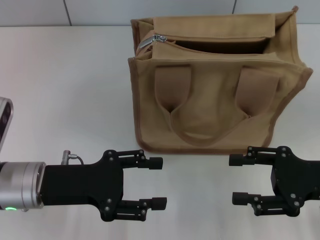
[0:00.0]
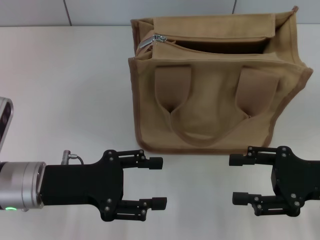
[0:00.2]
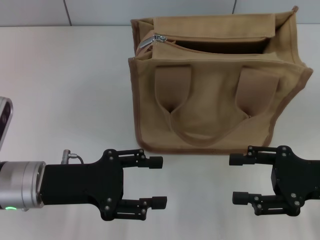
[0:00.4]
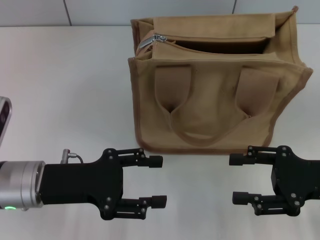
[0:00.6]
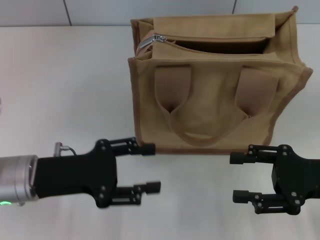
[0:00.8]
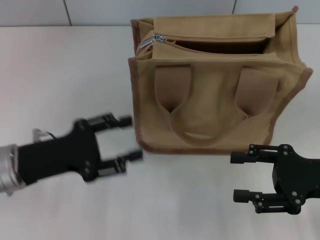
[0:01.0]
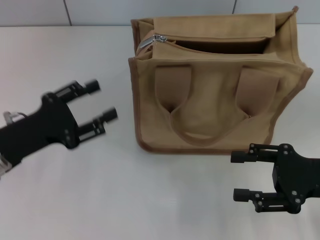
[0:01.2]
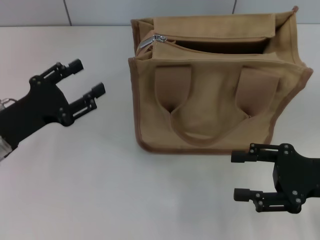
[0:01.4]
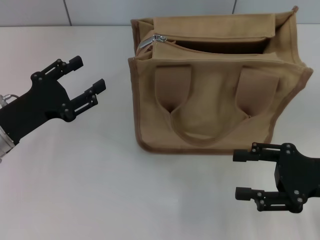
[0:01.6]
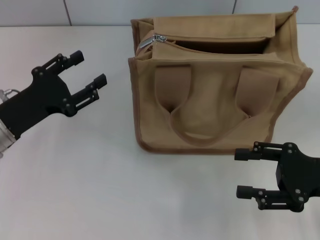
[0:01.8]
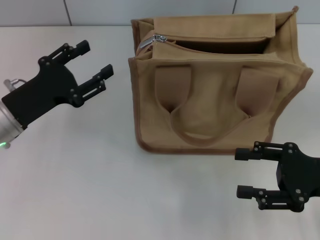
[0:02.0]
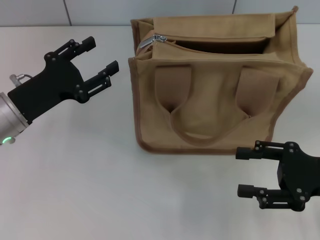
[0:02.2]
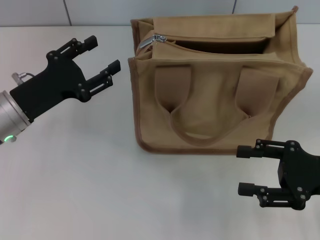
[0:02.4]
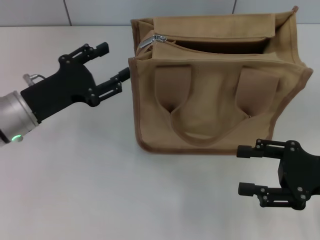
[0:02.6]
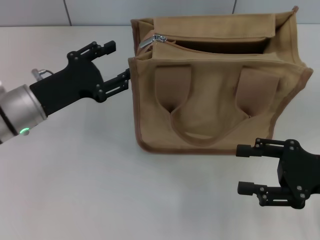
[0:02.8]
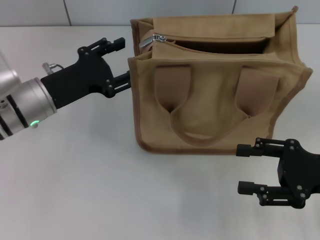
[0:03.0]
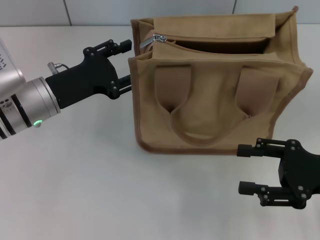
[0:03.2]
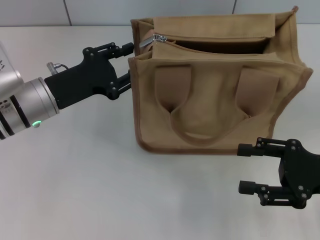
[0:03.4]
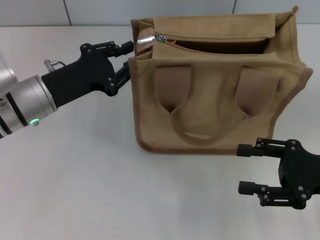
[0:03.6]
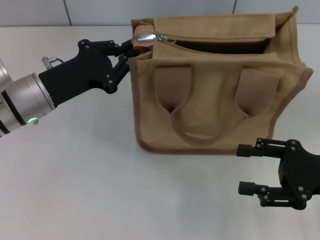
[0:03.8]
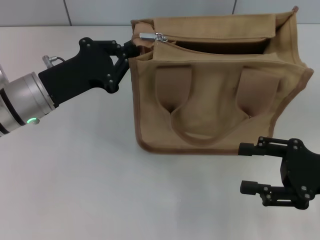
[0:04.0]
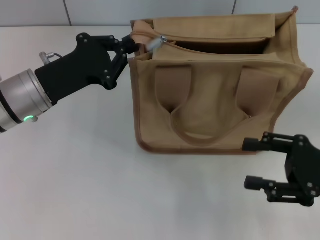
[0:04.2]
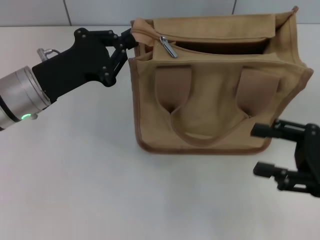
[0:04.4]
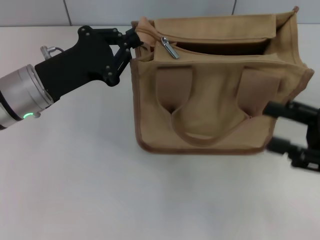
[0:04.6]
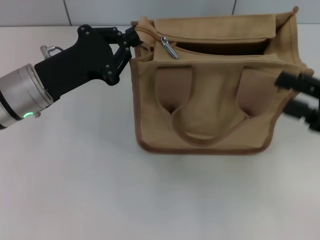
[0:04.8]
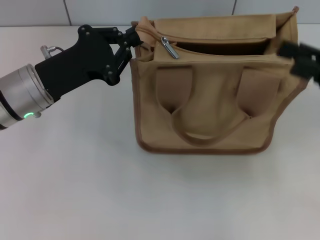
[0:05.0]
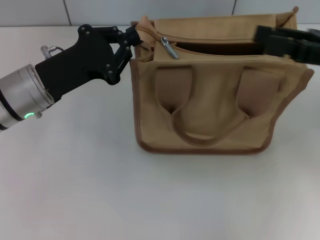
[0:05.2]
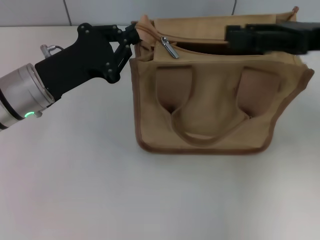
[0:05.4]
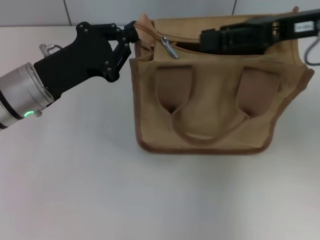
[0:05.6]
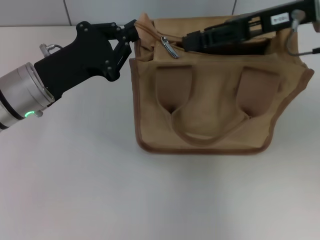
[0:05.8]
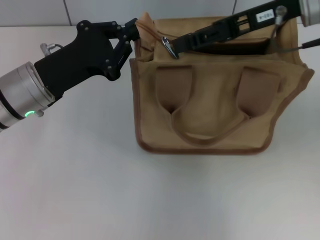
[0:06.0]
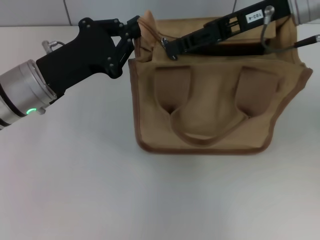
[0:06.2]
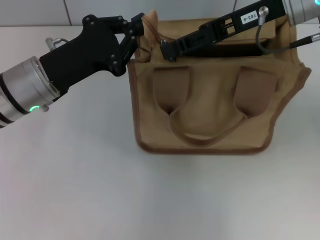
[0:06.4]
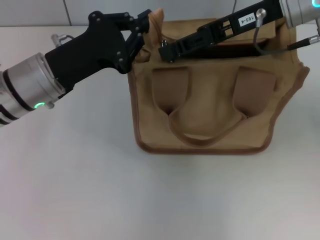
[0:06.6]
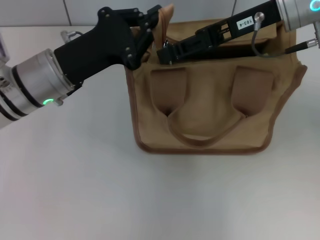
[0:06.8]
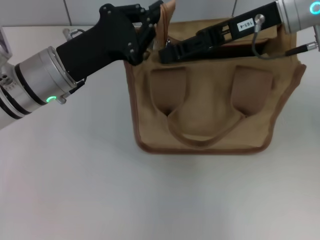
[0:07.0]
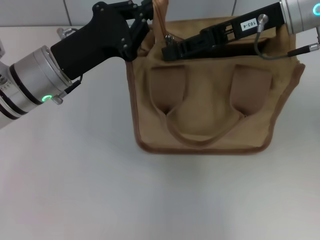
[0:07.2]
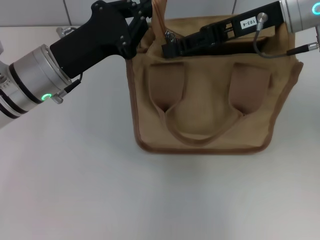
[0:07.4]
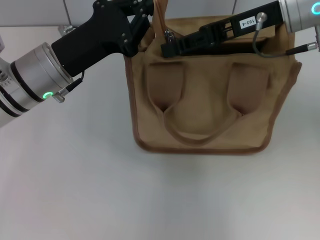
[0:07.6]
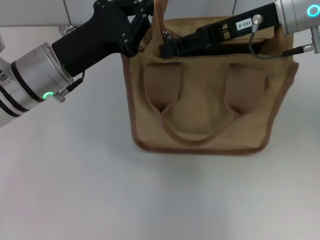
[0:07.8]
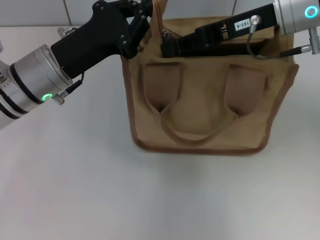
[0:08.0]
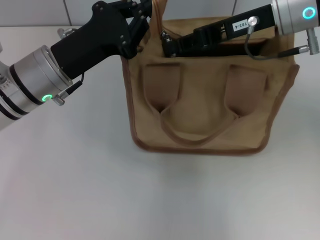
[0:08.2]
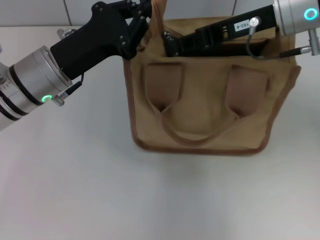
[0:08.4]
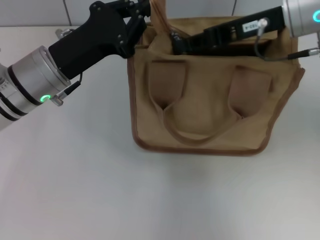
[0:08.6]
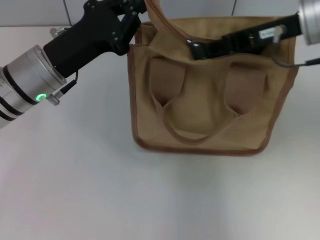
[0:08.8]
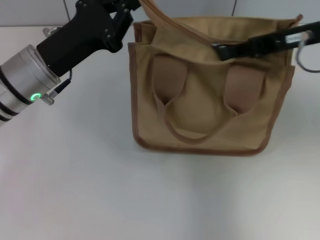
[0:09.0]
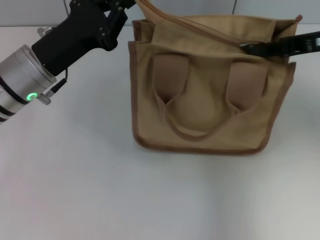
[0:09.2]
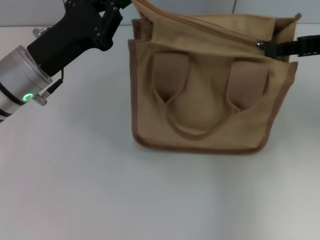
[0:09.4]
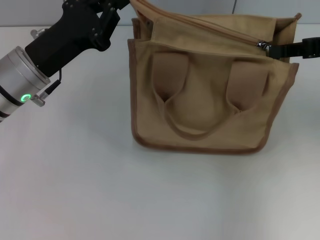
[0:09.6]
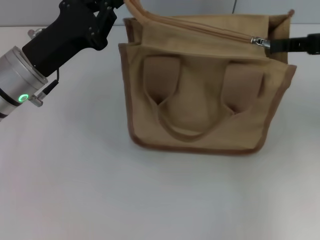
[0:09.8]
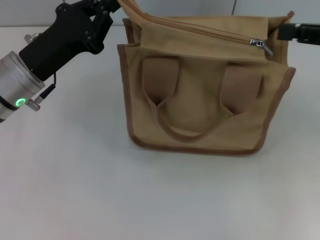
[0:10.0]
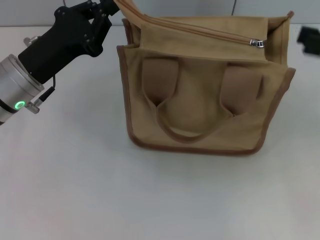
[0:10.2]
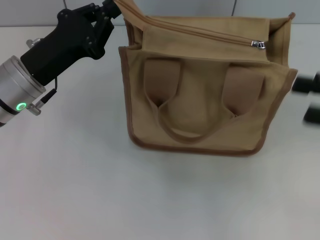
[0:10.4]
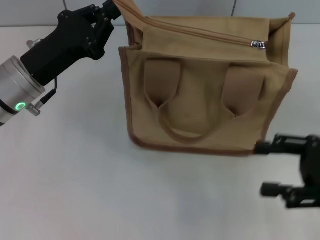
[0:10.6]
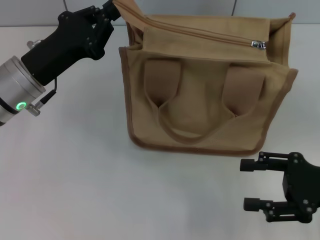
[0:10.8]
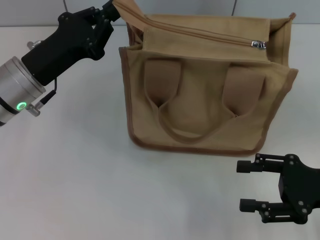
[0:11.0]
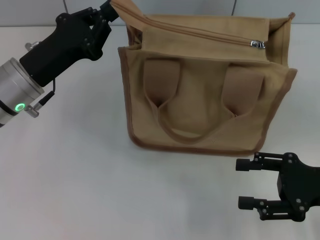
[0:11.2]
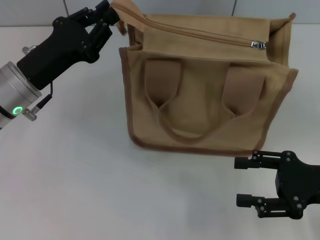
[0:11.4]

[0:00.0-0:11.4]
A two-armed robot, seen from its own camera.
Step, 0:00.0 to 0:10.0: Pull up the zipper with your right hand.
0:00.0 to 0:01.4: The left gripper goes some 5 cm to the left.
0:01.4 to 0:02.8: The left gripper shifts approximately 5 cm forward.
0:02.8 to 0:04.2: The left gripper closes its fingers.
0:04.2 to 0:05.6: The right gripper heads forward, upward and to the left, covering some 20 cm.
0:05.6 to 0:07.2: The right gripper goes roughly 5 cm to the left.
0:07.2 to 0:08.6: The right gripper closes.
0:08.6 to 0:10.0: The right gripper is displaced to the right and backward by approximately 15 cm.
0:10.0 to 0:11.4: The right gripper shifts some 15 cm downward and backward, and opens up.

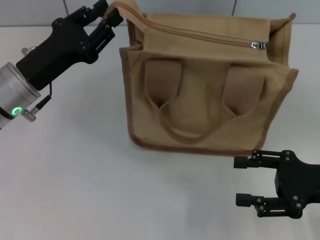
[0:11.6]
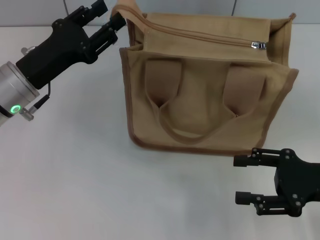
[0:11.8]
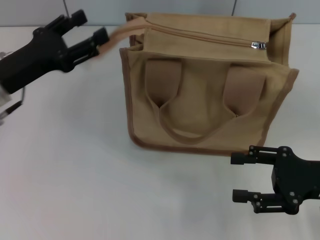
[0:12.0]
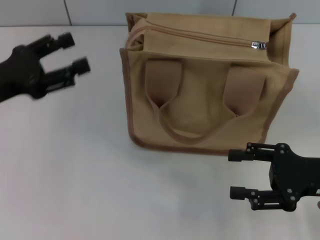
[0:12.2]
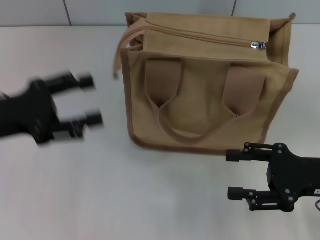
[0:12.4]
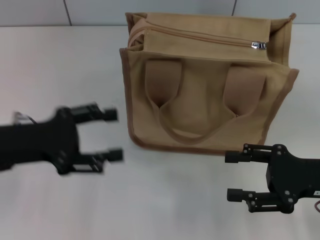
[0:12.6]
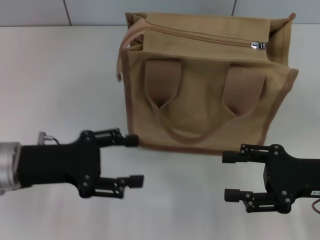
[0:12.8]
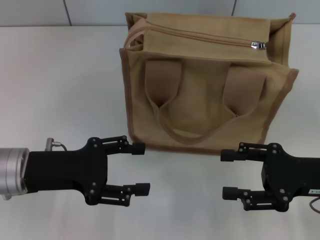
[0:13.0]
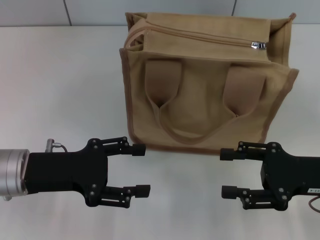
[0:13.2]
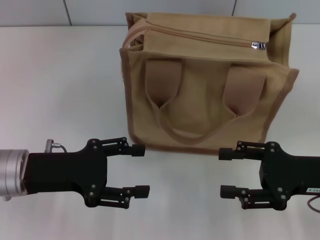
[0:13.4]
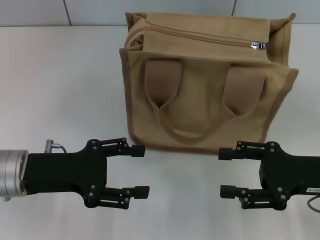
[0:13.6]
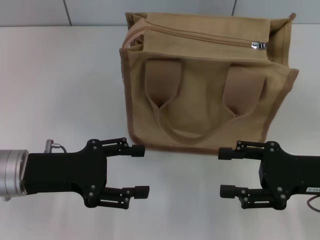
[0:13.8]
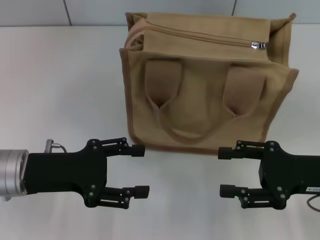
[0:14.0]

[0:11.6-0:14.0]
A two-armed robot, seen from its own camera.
0:11.6 to 0:12.8: The left gripper travels backward by some 5 cm, and opens its fingers.
0:12.8 to 0:14.0: Neither gripper changes place.

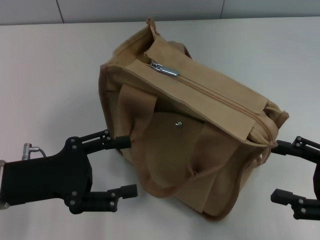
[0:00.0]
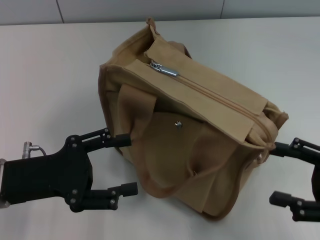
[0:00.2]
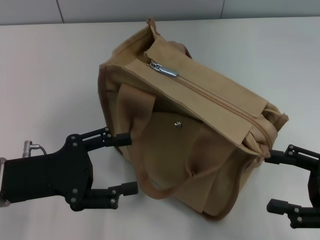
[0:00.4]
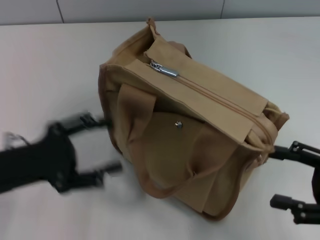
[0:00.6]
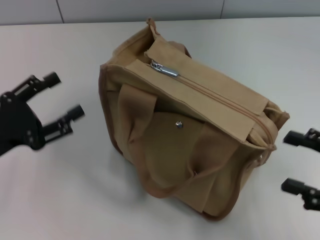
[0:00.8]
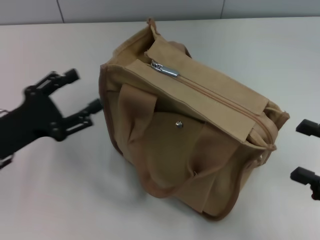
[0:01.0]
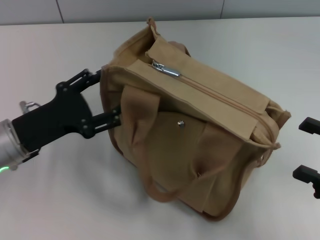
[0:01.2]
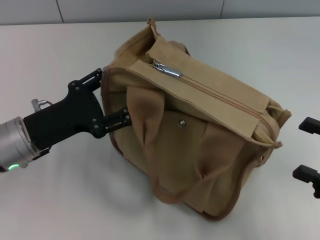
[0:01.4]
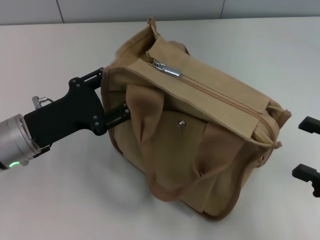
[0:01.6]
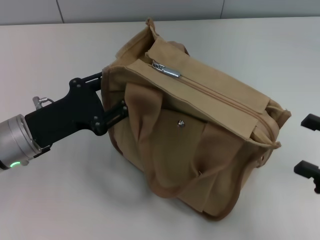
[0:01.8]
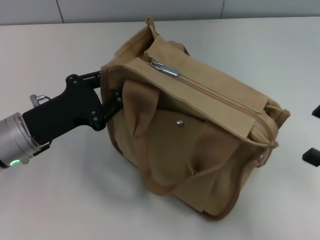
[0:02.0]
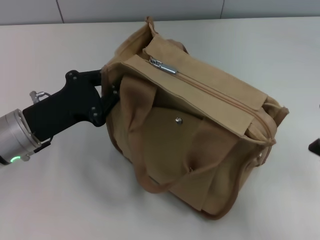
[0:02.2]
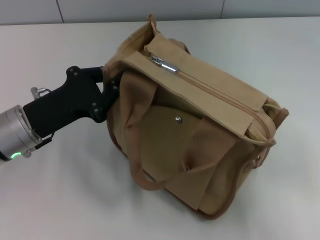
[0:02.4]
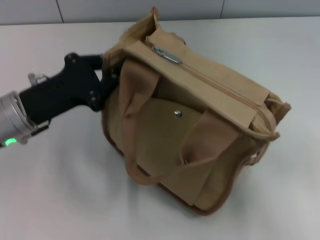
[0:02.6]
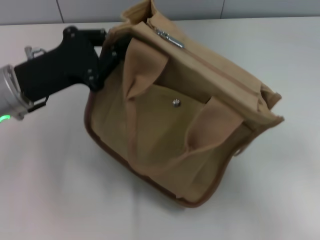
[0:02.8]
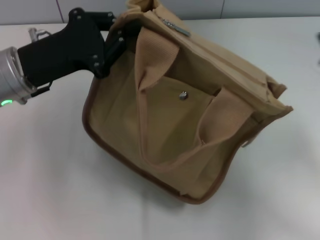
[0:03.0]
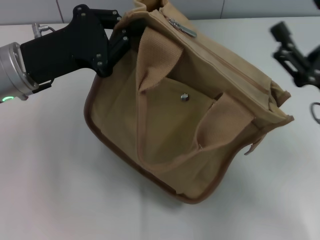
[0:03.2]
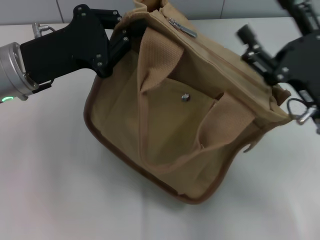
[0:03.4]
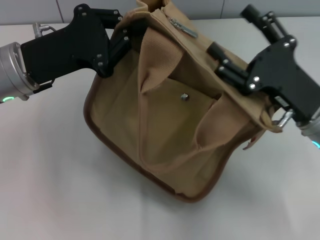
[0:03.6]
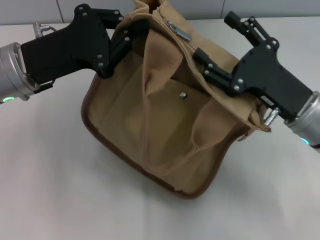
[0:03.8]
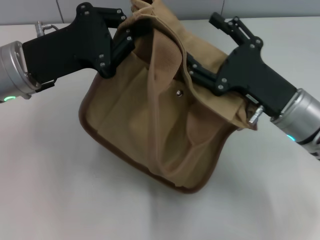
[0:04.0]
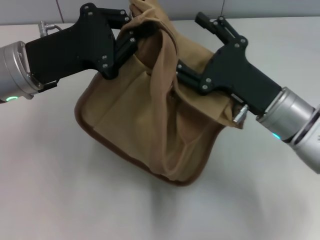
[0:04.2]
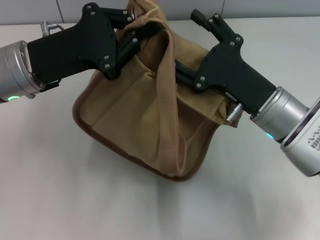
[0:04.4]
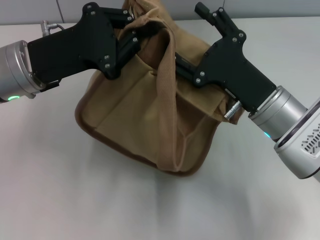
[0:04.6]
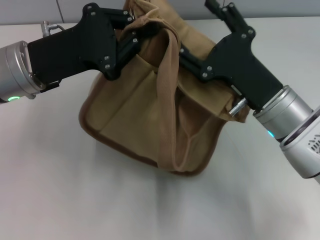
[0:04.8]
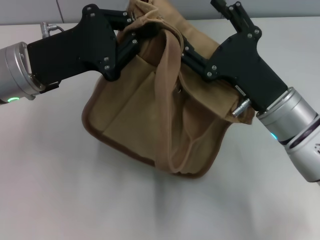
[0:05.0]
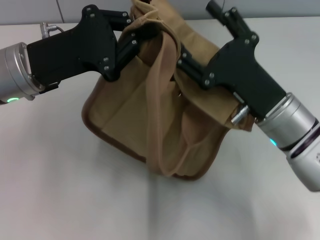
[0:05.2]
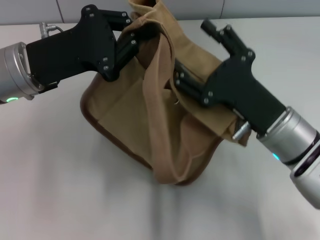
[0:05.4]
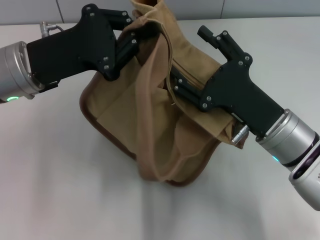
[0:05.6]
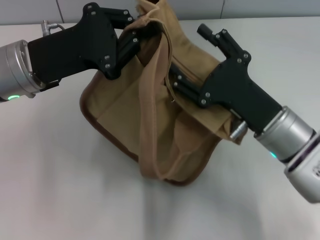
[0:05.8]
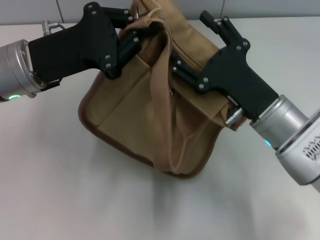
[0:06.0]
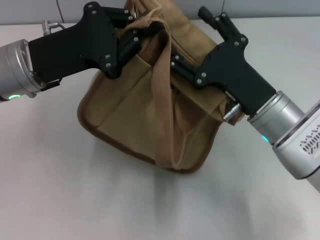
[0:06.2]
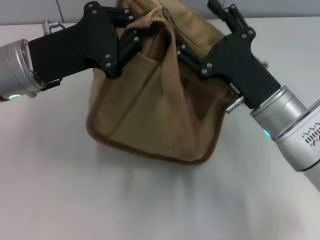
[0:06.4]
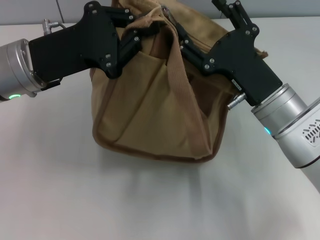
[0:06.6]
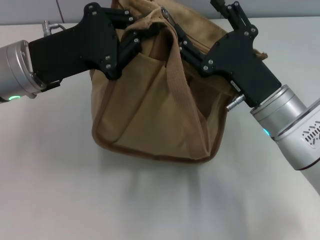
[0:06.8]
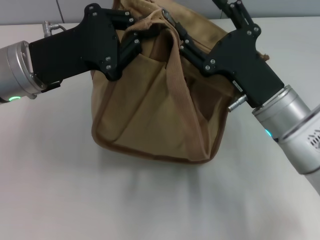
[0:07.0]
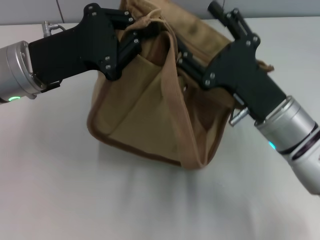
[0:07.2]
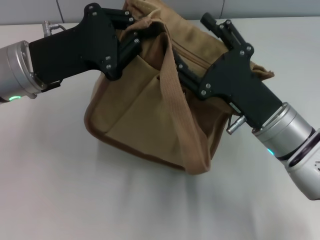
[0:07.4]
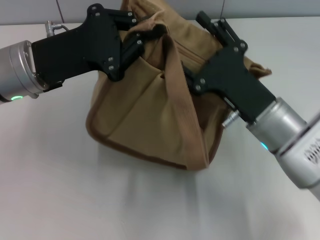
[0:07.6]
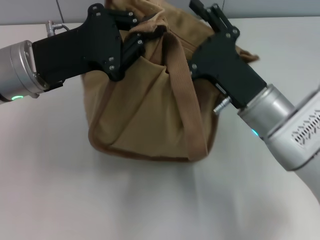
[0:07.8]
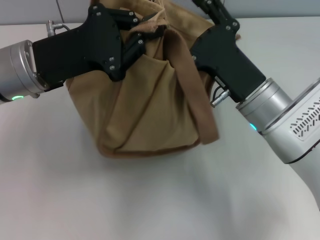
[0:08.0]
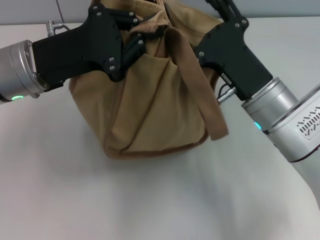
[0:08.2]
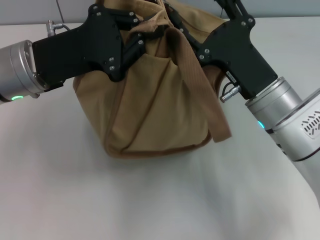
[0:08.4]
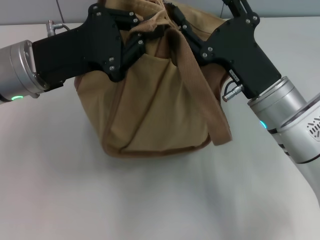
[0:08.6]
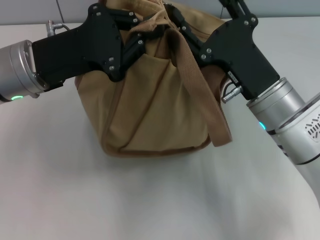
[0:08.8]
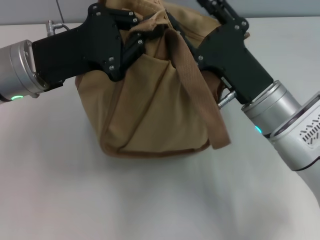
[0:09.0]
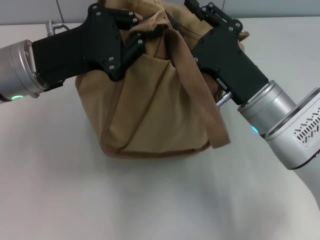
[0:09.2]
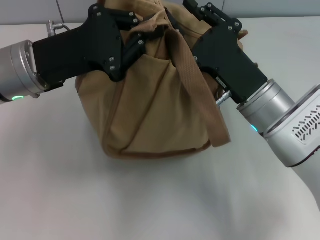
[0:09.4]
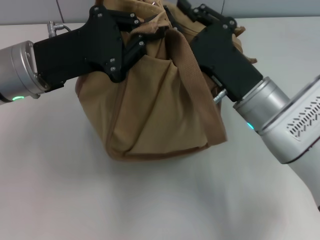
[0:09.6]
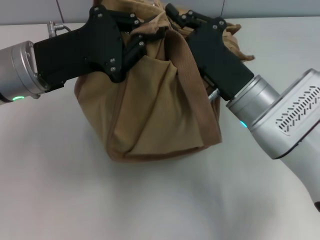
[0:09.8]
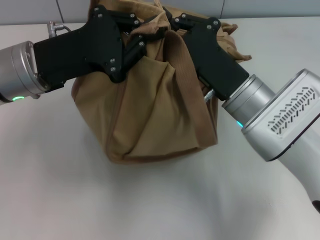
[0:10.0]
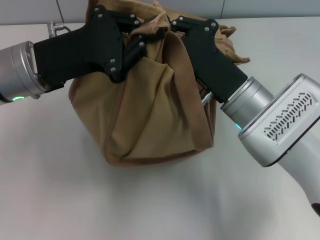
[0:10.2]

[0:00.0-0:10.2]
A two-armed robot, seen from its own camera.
0:00.0 to 0:01.4: The left gripper moves some 5 cm.
0:01.4 to 0:03.0: The left gripper is displaced upward and forward by some 10 cm, and closes. The right gripper heads to the left and forward, covering about 5 cm.
0:03.0 to 0:04.4: The right gripper is displaced to the left and forward by roughly 15 cm.
0:04.4 to 0:05.8: The grippers move only a little.
0:08.8 to 0:10.2: The right gripper closes its fingers.
